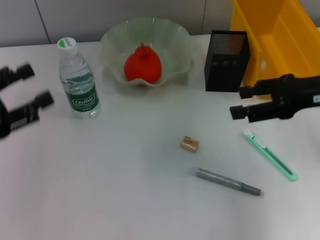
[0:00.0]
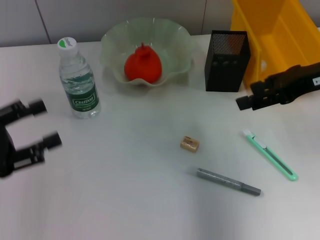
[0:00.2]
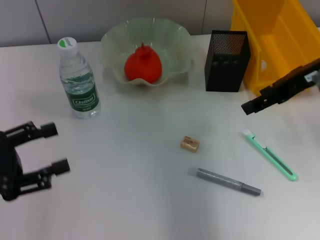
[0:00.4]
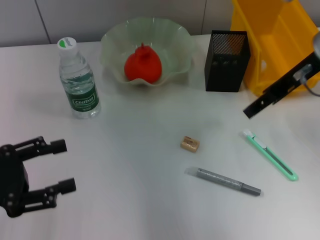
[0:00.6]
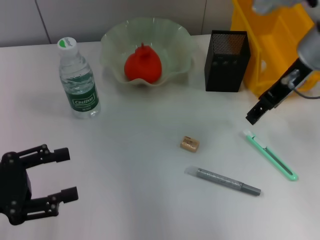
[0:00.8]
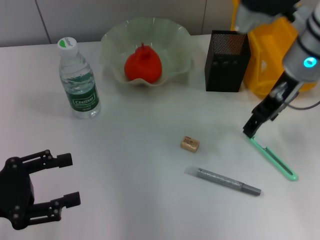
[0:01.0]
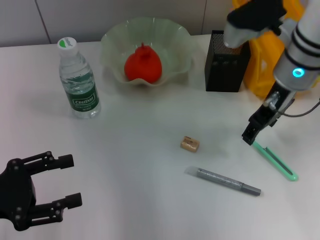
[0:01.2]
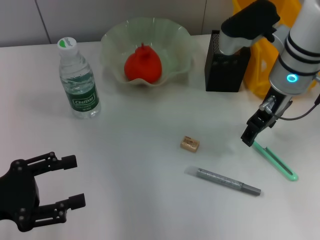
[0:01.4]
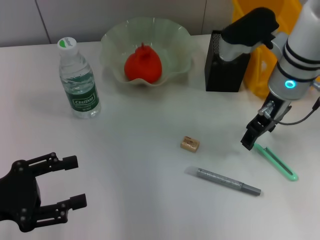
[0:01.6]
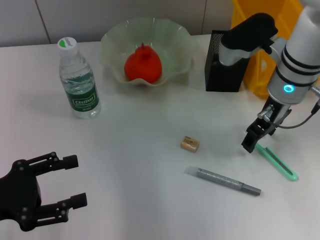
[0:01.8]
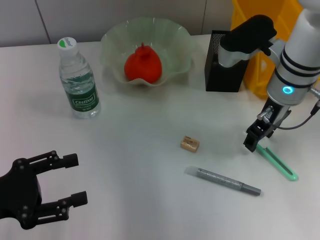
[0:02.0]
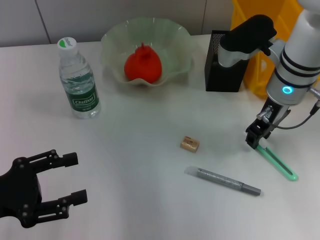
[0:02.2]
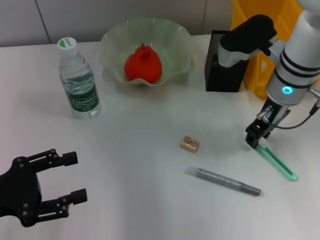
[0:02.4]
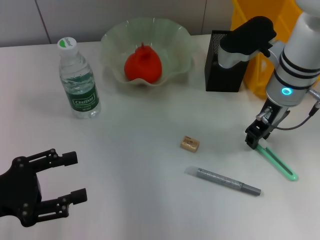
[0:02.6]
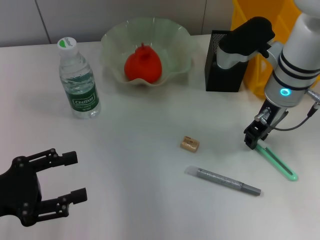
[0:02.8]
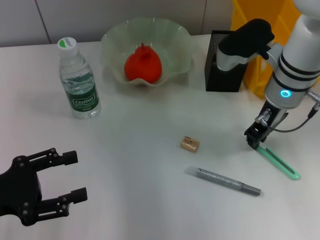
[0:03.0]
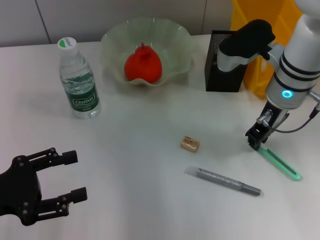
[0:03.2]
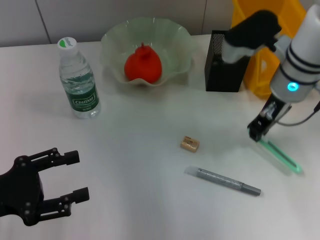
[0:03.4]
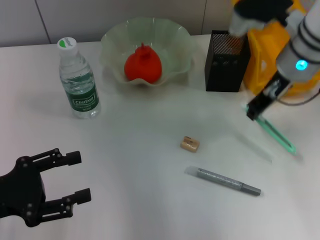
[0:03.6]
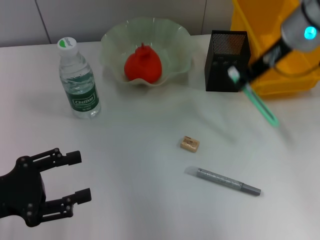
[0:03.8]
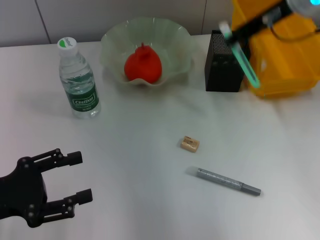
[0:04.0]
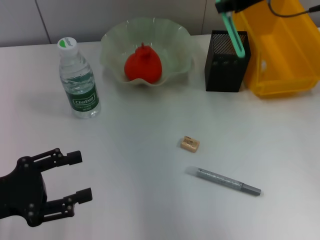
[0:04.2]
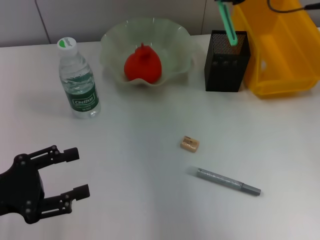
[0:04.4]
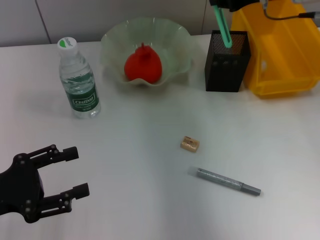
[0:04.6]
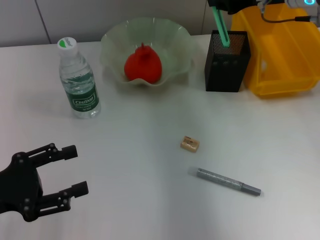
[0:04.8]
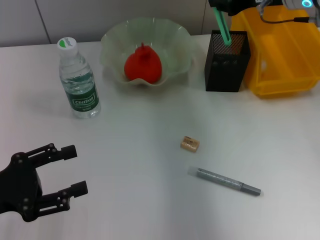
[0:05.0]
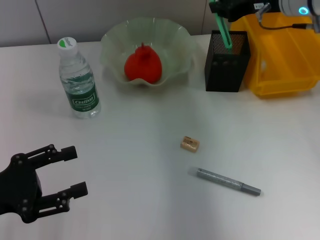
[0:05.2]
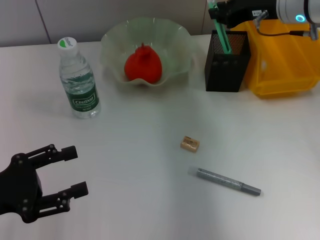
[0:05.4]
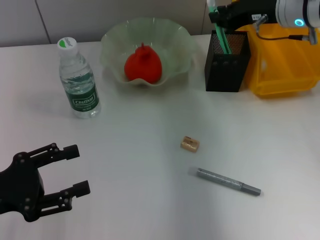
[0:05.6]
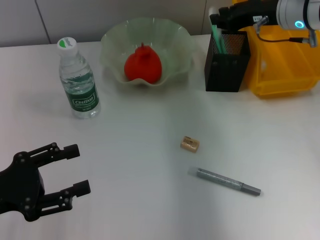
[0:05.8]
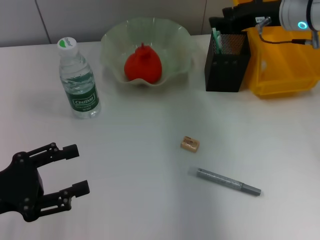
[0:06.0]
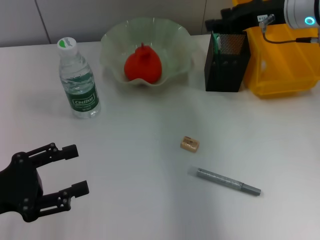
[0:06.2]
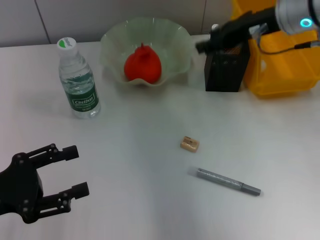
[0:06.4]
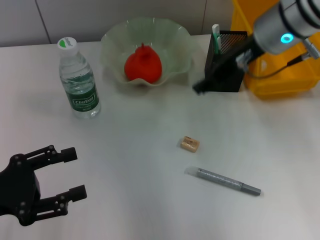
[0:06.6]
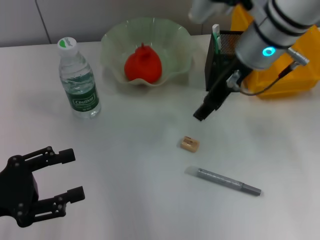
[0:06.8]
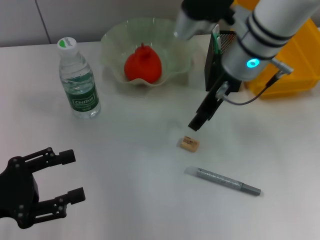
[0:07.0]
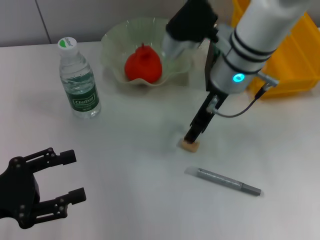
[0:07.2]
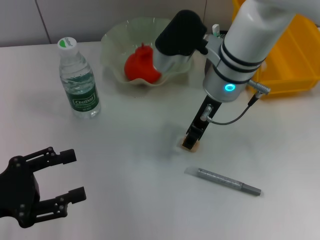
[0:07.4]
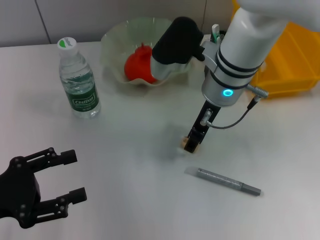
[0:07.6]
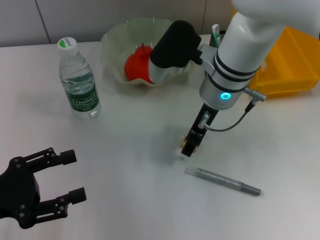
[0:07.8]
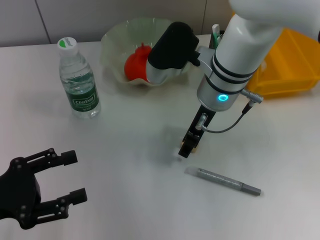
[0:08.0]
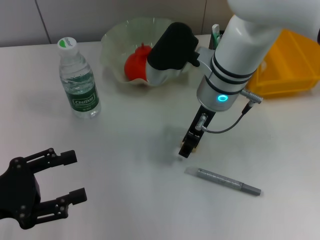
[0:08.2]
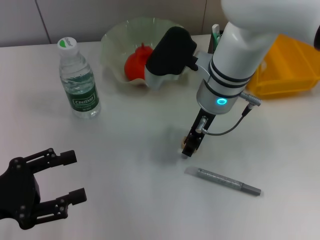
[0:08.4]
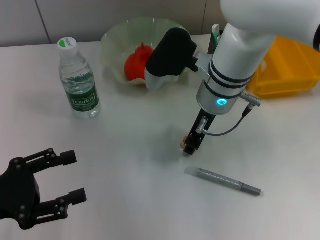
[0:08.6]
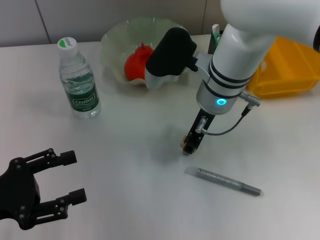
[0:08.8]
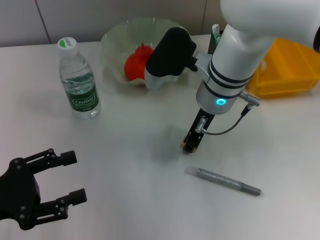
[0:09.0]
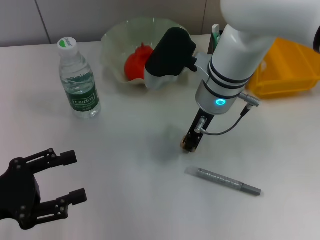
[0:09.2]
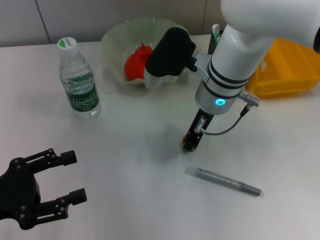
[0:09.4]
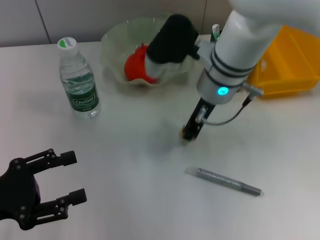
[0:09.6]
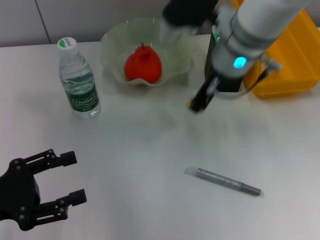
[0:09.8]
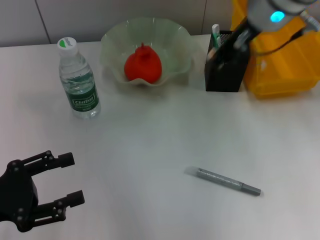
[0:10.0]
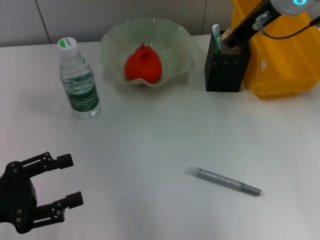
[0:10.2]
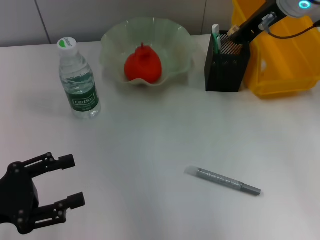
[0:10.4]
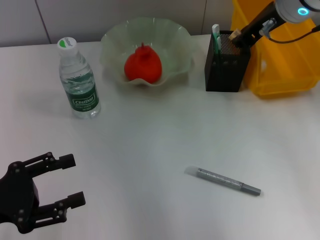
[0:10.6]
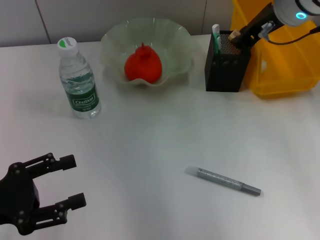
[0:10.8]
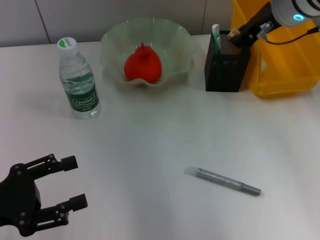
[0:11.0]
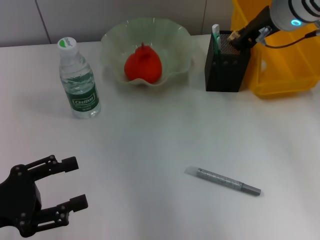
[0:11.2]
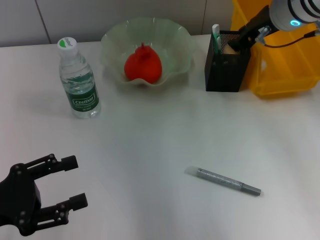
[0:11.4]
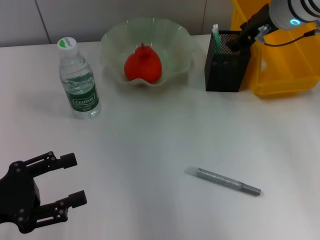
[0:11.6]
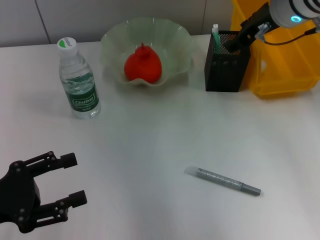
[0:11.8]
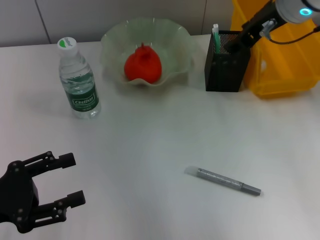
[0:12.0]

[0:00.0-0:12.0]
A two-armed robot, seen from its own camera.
Step, 0:00.0 to 0:03.2: Grab the blue utility knife with the right hand.
Step, 0:03.4 to 0:06.0: Place the blue utility knife into the pen holder with the right hand.
Step, 0:06.2 to 0:09.4: Grab the eraser with the right hand.
Step, 0:09.6 to 0:11.6: Put the eraser into the pen holder with the right hand.
0:00.0 to 0:01.6: The left gripper moves about 5 cm. Meanwhile the right gripper moves to the left and forward, about 15 cm.
0:01.6 to 0:03.0: The right gripper closes up.
0:03.0 to 0:04.4: The right gripper shifts some 10 cm upward.
0:04.4 to 0:06.0: The right gripper shifts roughly 10 cm downward.
0:06.0 to 0:07.6: The right gripper is displaced to the left by approximately 15 cm, and opens its fingers.
0:07.6 to 0:09.0: The grippers make only small movements.
0:09.0 to 0:10.4: The right gripper is displaced upward and to the right by roughly 15 cm.
0:10.4 to 0:12.0: The right gripper opens its fingers.

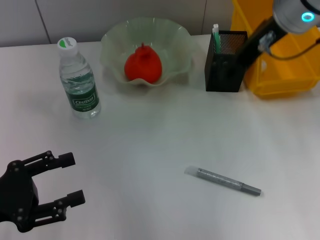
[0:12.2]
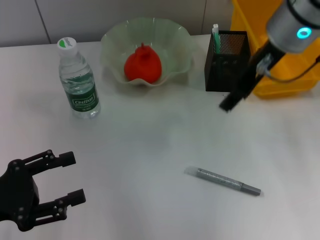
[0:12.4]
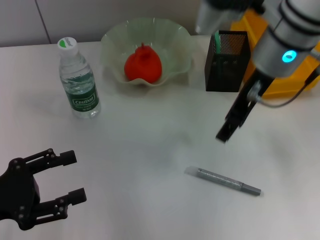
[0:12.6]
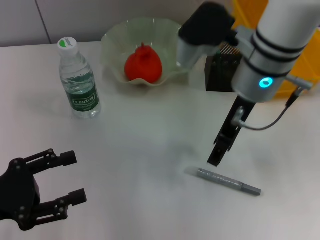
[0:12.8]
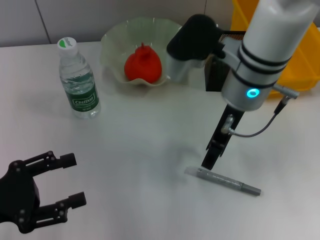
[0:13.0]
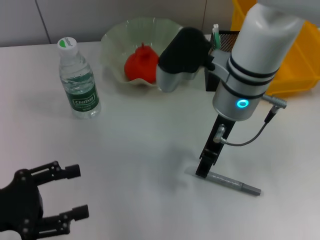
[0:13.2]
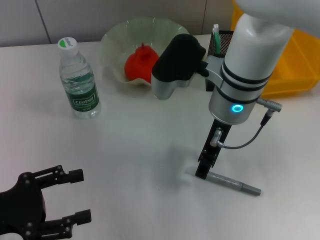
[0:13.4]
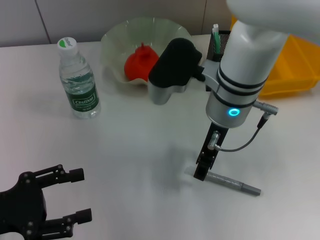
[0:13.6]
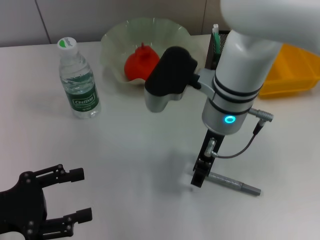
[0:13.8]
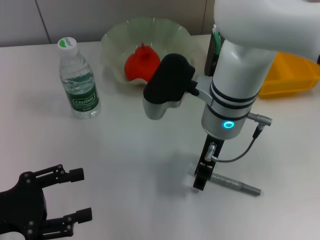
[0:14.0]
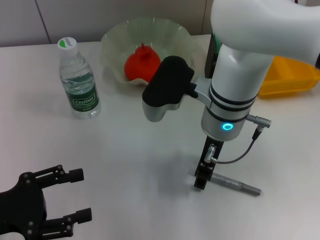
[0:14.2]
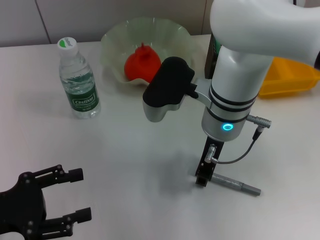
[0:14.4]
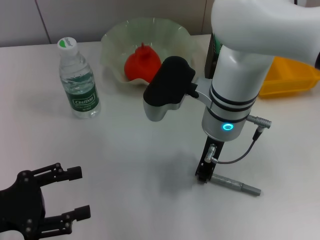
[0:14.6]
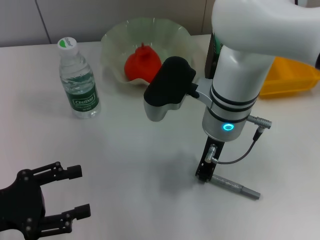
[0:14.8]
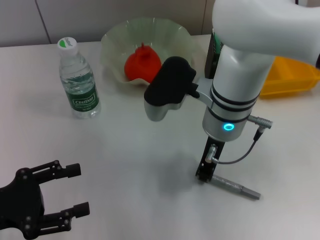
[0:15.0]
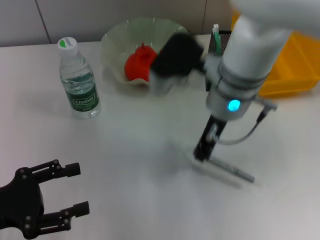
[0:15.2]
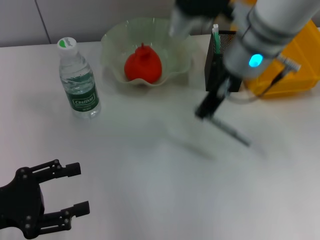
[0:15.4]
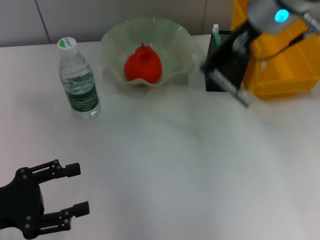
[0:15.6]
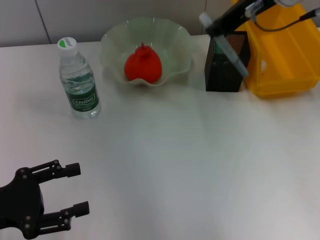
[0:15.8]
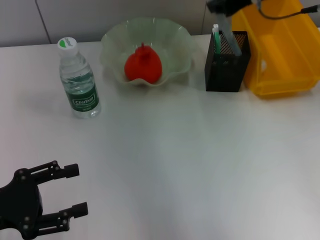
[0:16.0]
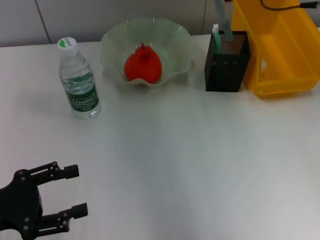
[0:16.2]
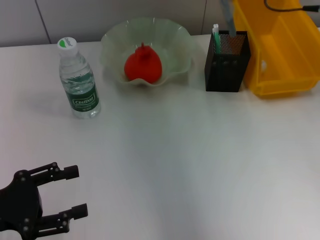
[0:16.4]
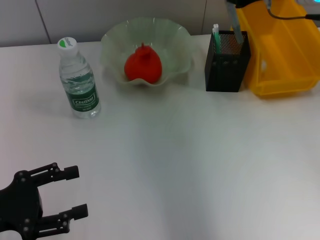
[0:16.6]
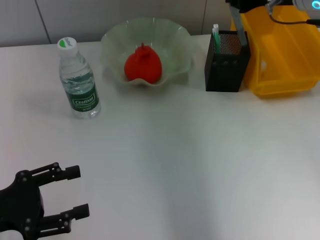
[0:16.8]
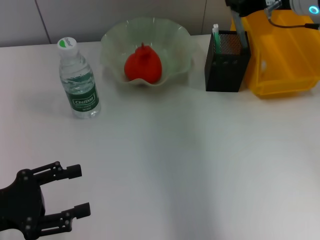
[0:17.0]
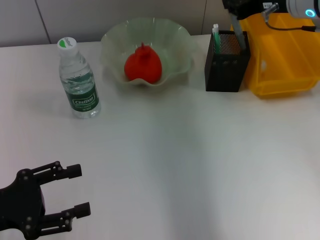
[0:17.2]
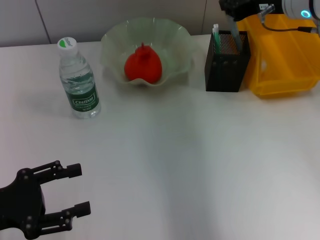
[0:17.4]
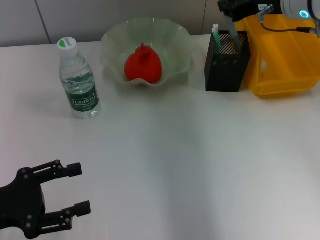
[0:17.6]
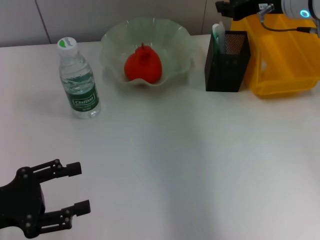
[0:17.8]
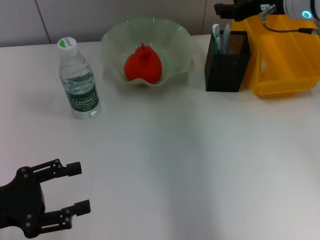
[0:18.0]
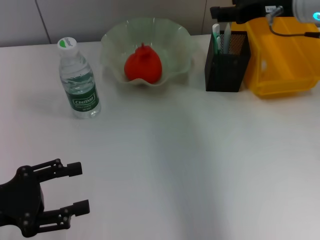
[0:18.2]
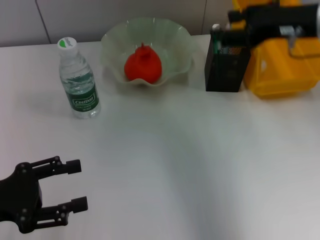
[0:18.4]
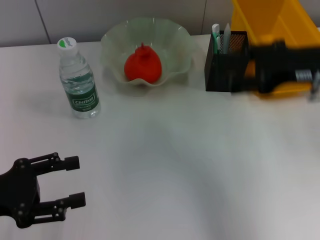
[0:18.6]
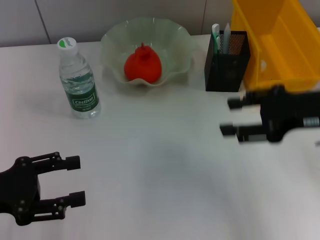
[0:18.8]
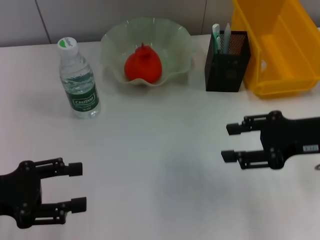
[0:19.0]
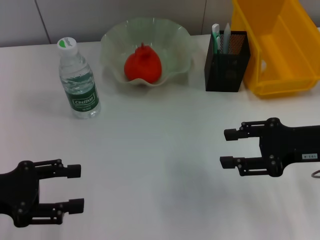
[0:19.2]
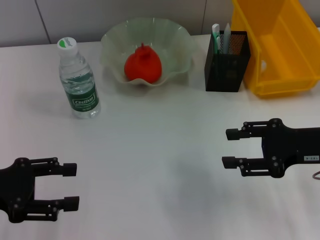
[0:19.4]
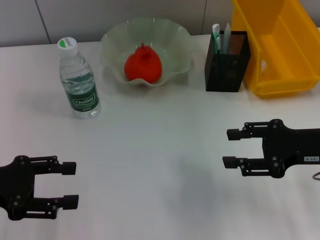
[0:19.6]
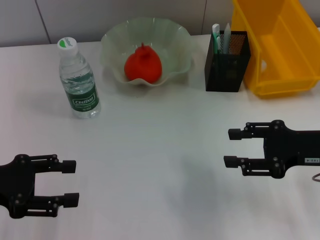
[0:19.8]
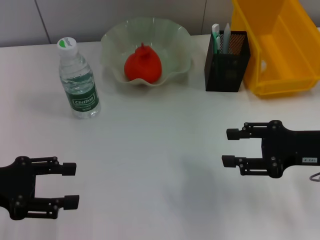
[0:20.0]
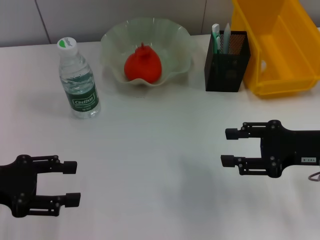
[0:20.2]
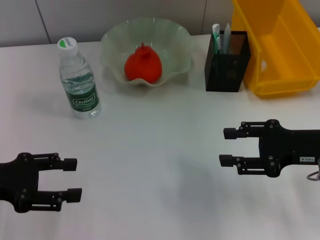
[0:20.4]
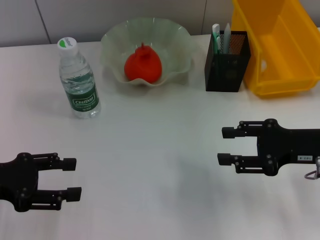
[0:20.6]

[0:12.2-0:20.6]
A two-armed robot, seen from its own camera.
Step, 0:12.2 to 0:14.6: Grab the gray glue with the right hand.
Step, 0:14.8 to 0:17.8: Place the gray glue into the pen holder with the right hand.
0:12.2 to 0:13.6: The right gripper shifts approximately 15 cm downward and to the left.
0:13.6 to 0:15.0: The right gripper closes up.
0:15.0 to 0:16.4: The right gripper heads to the right, upward and forward, covering approximately 20 cm.
0:16.4 to 0:17.8: The right gripper ends up roughly 5 cm from where it was.
0:17.8 to 0:19.2: The right gripper moves backward and downward, about 20 cm, and opens its fingers.
0:19.2 to 0:20.6: The grippers stay close to where they were, moving slightly.
